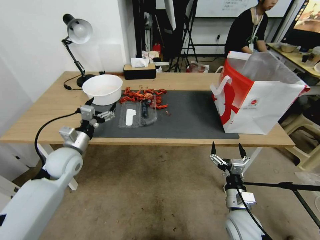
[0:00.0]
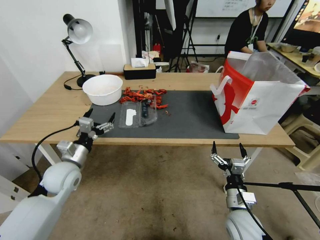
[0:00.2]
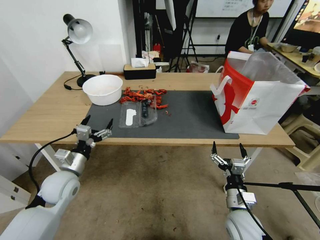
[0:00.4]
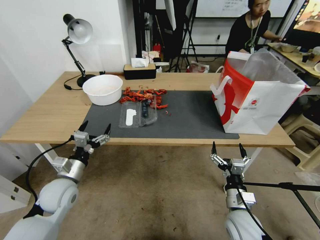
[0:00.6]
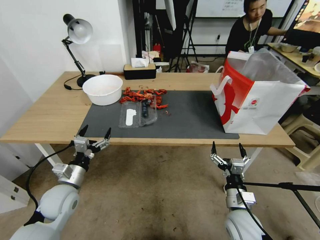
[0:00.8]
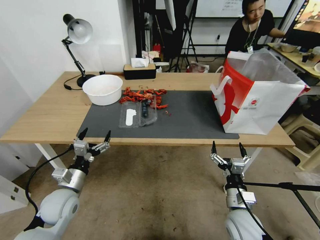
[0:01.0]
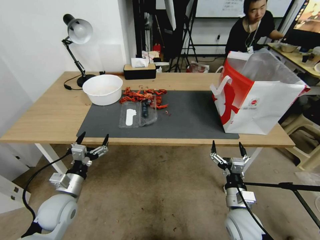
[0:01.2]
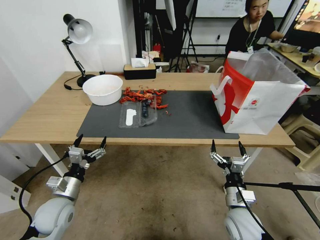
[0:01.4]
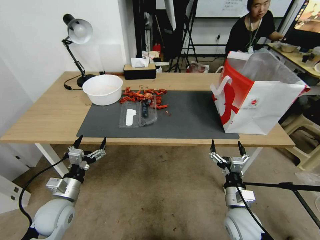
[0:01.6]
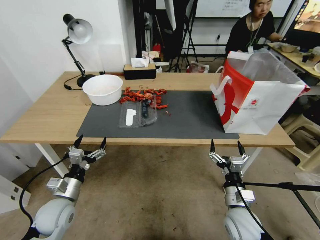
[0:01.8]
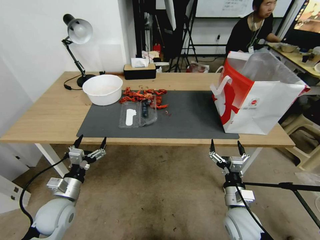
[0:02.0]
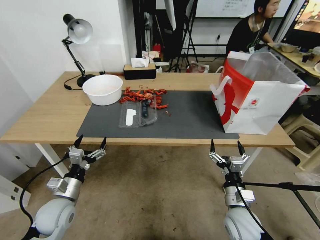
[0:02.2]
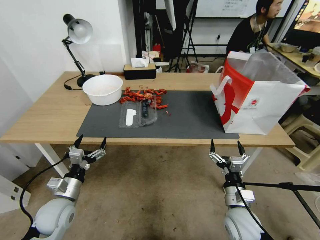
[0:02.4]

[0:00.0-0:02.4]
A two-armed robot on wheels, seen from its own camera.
0:00.0 to 0:01.2: The left gripper shifts roughly 15 cm backward and downward.
0:01.2 to 0:02.4: The grippers make only small movements.

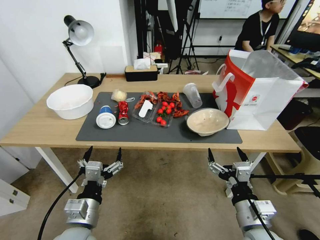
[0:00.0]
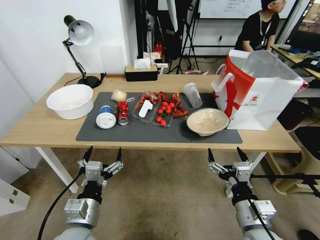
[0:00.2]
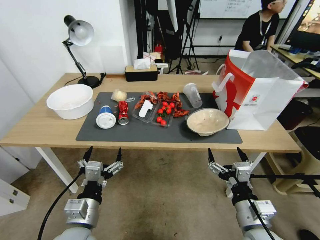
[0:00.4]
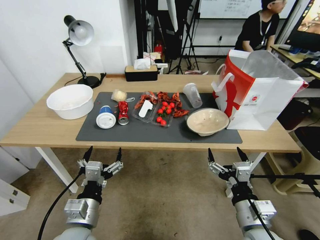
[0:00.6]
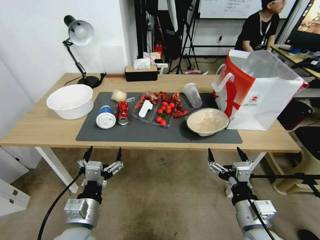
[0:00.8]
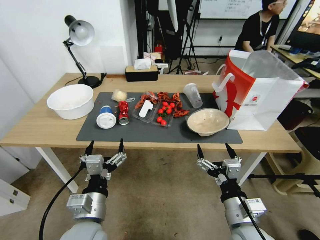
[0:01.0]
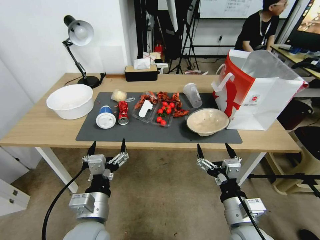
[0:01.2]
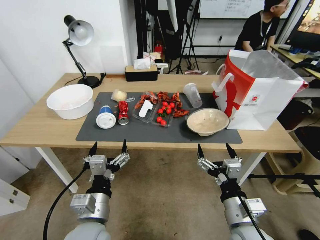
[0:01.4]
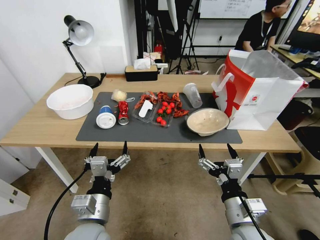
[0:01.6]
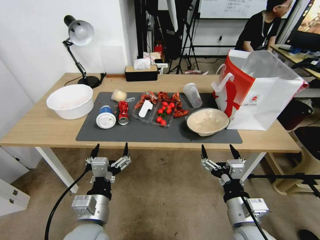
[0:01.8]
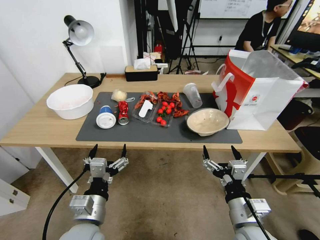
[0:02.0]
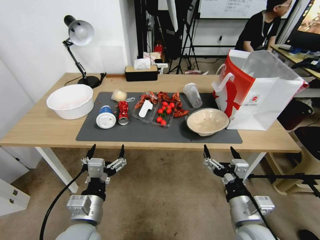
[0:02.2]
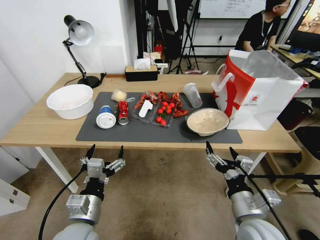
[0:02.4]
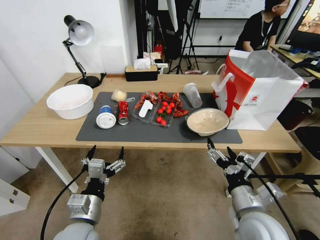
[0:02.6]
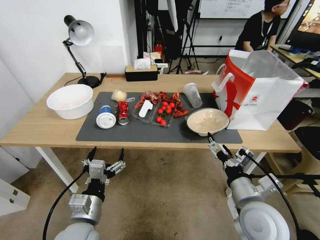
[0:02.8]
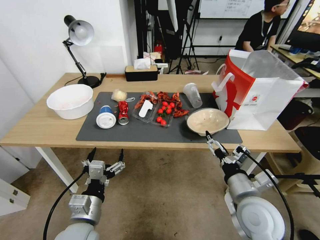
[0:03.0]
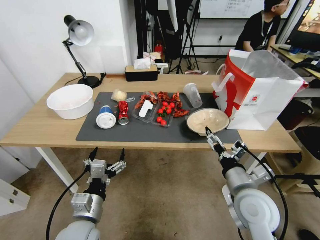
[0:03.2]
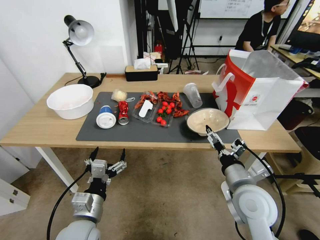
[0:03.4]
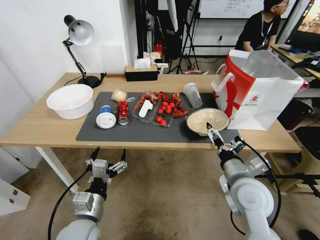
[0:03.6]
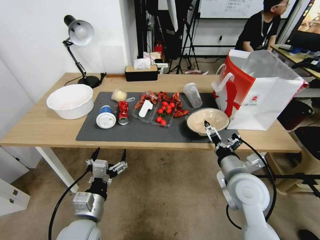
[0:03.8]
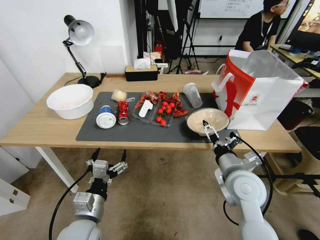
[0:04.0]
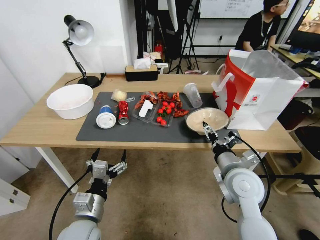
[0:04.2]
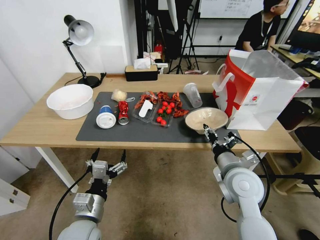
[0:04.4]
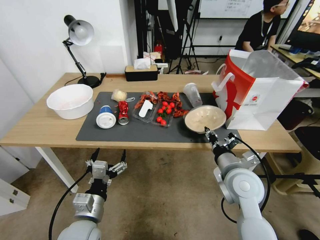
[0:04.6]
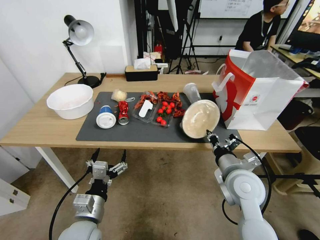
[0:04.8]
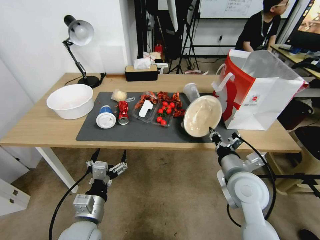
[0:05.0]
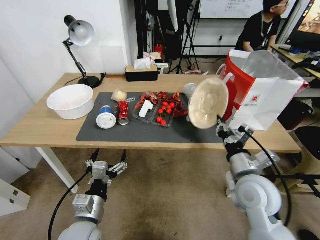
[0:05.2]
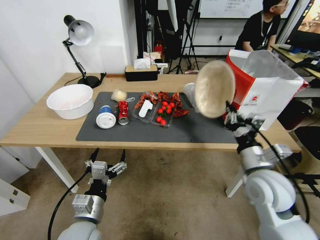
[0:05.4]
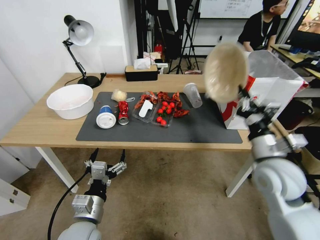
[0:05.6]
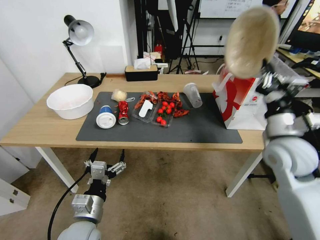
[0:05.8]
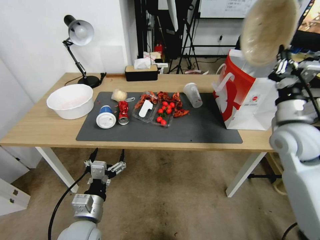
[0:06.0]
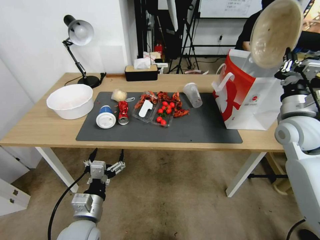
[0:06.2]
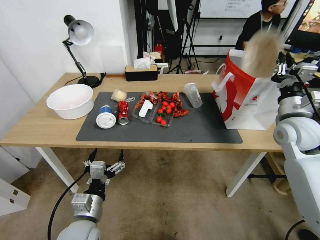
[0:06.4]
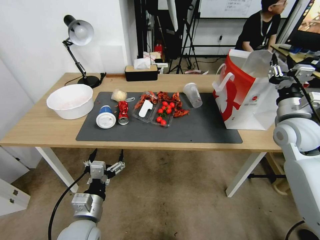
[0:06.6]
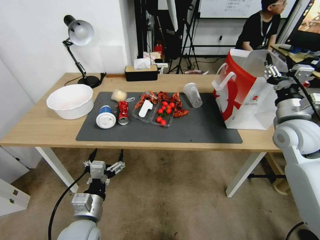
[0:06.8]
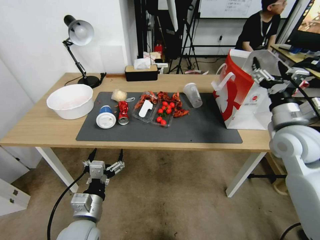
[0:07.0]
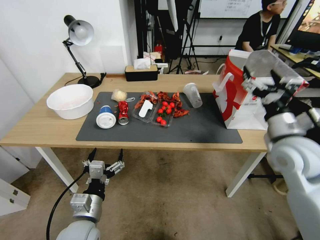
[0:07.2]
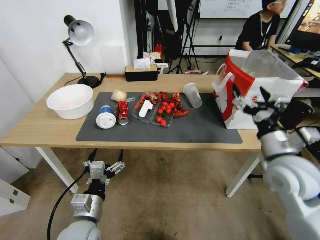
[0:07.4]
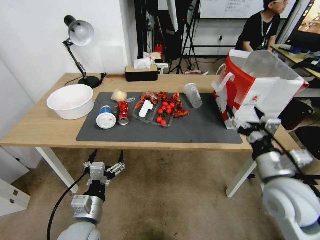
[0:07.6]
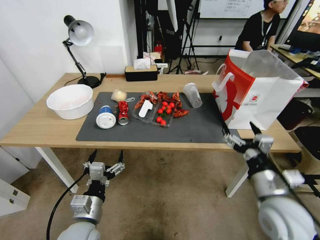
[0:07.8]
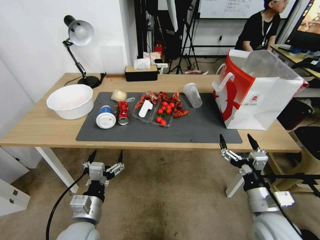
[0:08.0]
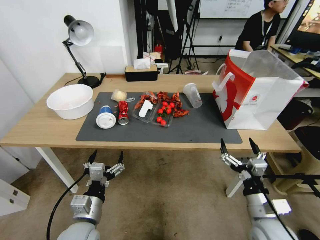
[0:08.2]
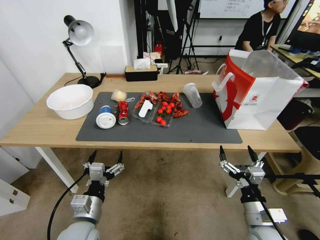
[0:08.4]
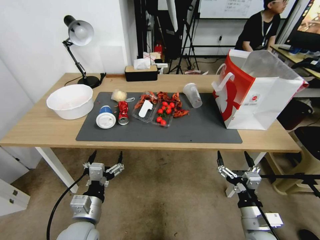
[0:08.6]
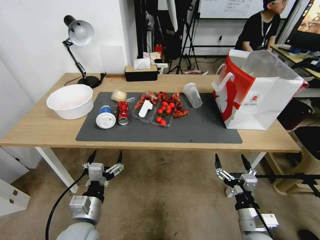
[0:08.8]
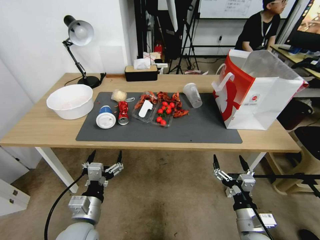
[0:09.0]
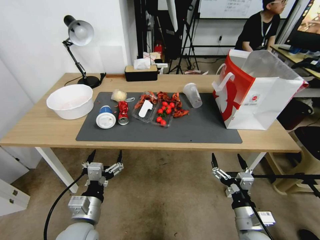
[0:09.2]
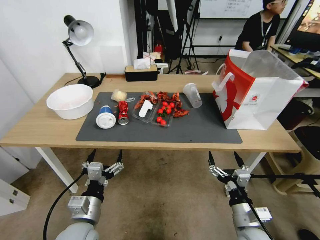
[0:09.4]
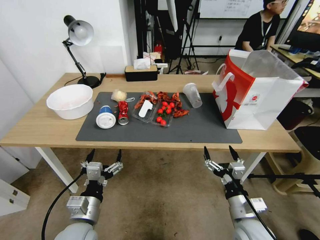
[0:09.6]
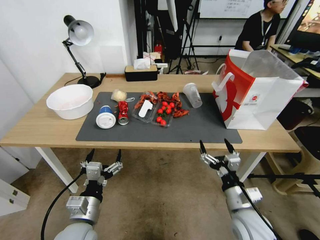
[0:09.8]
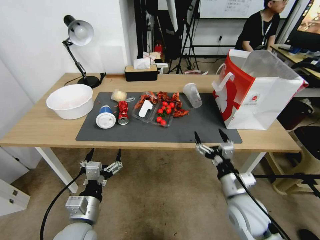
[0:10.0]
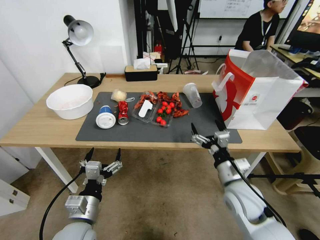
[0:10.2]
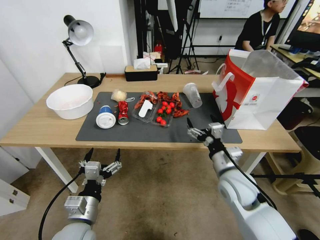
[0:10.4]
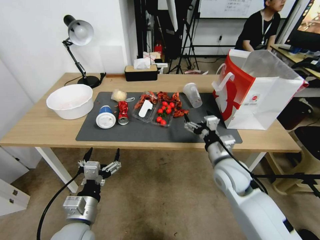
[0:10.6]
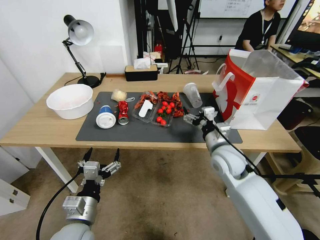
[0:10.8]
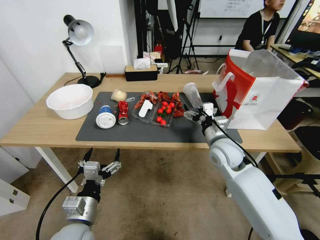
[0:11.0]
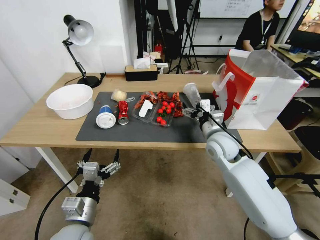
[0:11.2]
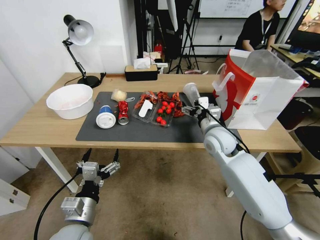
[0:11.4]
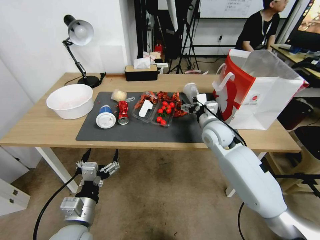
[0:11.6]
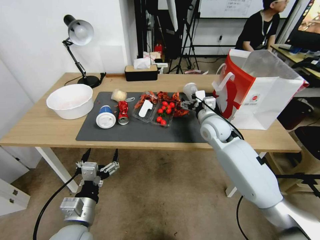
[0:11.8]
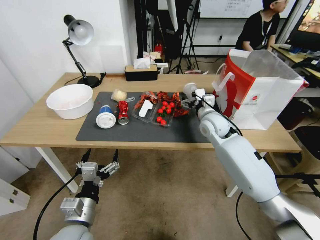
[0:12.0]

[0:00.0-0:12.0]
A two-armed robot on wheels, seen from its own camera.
0:01.6 to 0:03.0: The right gripper ends up some 5 cm from where it was.
0:03.0 to 0:04.4: The right gripper heads forward, covering some 10 cm, and closes its fingers.
0:04.4 to 0:06.0: The right gripper goes approximately 15 cm to the right, upward and forward, and closes.
0:06.0 to 0:07.6: The right gripper shifts approximately 10 cm backward and downward, and opens up.
0:07.6 to 0:09.0: The right gripper heads downward and backward, covering some 20 cm.
0:09.0 to 0:10.4: The right gripper shifts roughly 15 cm forward and upward.
0:10.4 to 0:12.0: The right gripper heads forward, covering some 20 cm.

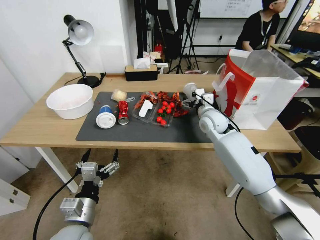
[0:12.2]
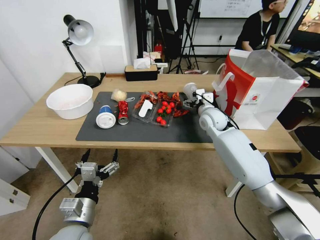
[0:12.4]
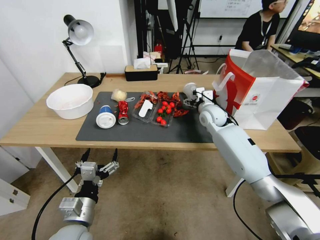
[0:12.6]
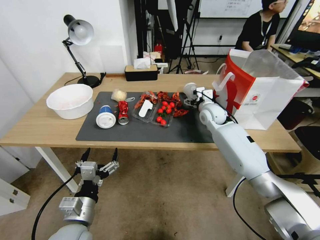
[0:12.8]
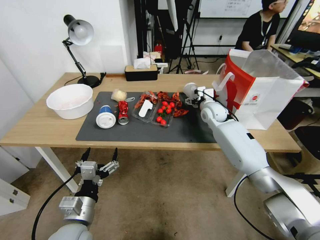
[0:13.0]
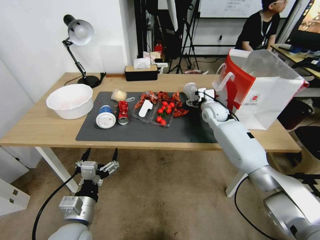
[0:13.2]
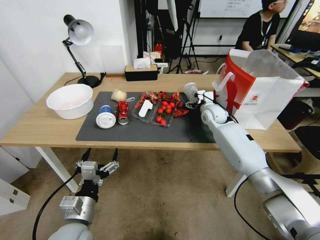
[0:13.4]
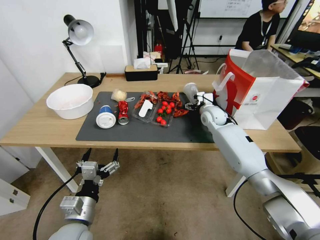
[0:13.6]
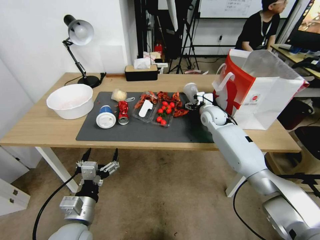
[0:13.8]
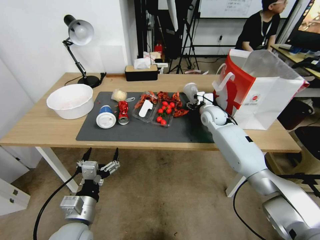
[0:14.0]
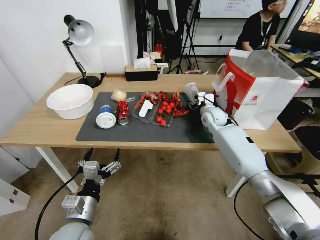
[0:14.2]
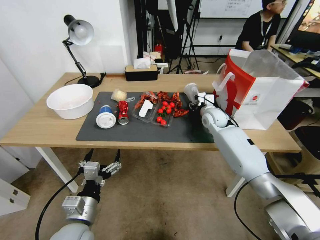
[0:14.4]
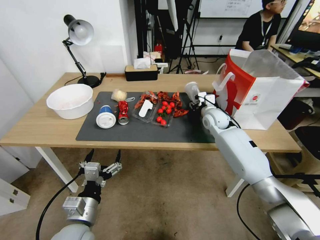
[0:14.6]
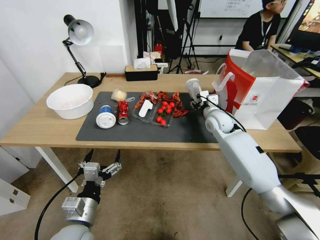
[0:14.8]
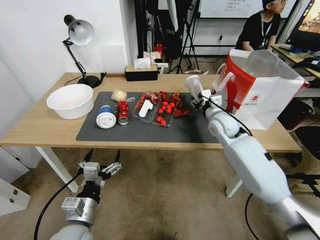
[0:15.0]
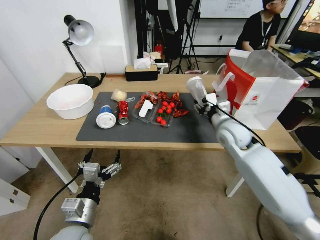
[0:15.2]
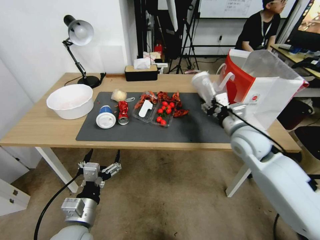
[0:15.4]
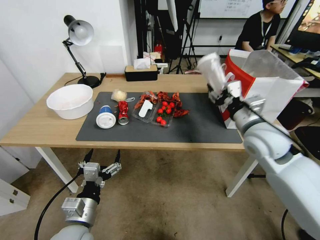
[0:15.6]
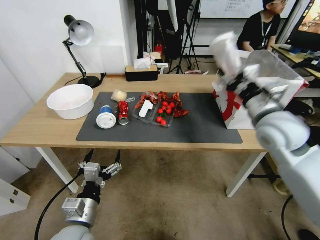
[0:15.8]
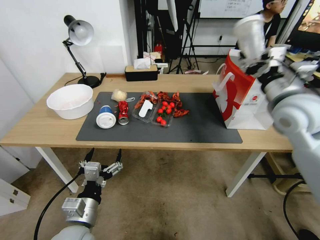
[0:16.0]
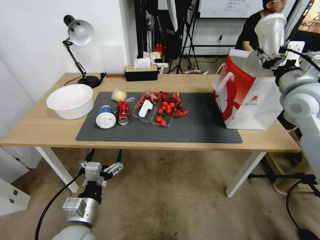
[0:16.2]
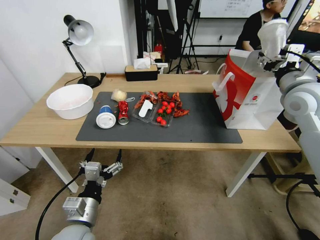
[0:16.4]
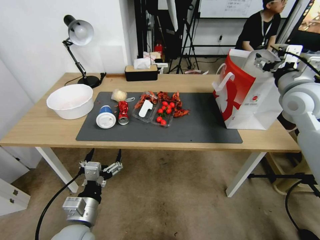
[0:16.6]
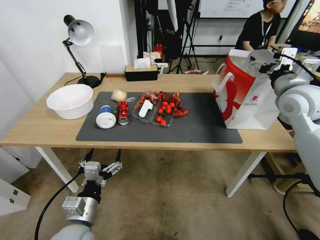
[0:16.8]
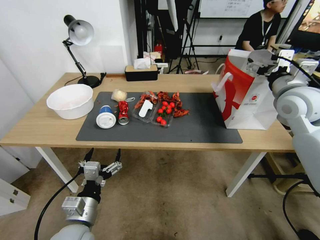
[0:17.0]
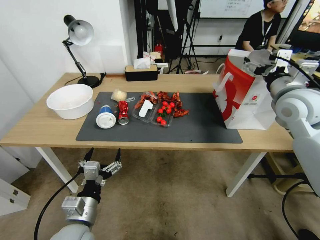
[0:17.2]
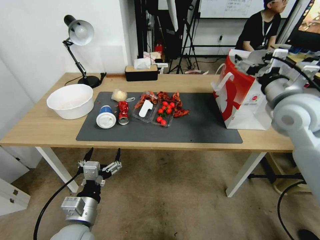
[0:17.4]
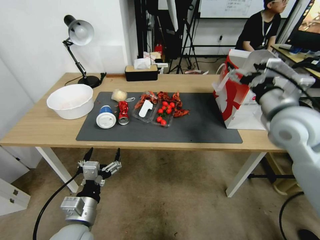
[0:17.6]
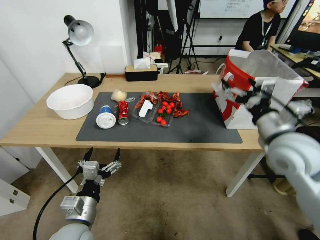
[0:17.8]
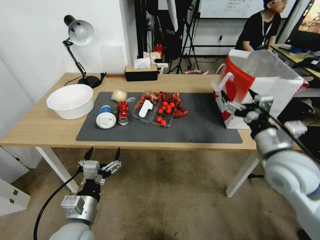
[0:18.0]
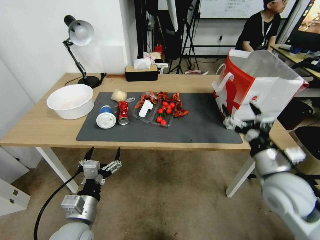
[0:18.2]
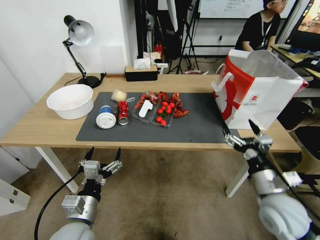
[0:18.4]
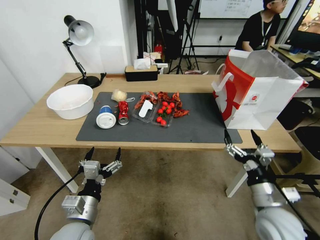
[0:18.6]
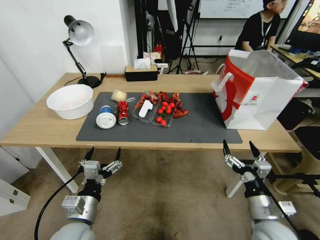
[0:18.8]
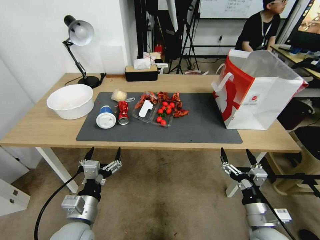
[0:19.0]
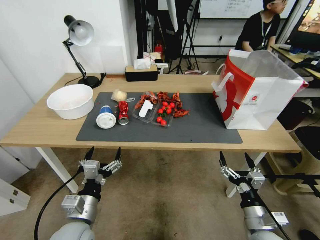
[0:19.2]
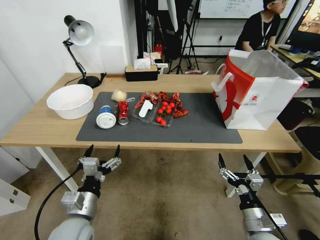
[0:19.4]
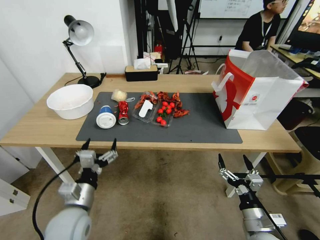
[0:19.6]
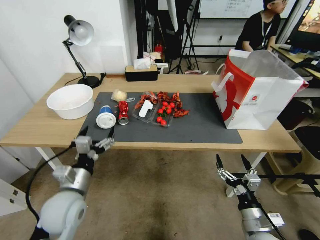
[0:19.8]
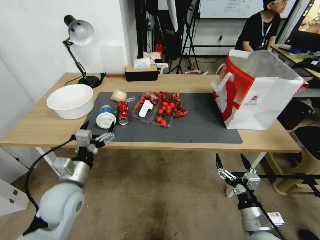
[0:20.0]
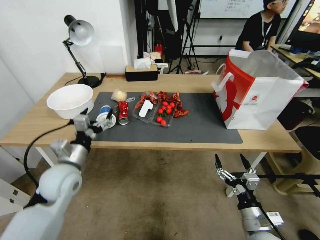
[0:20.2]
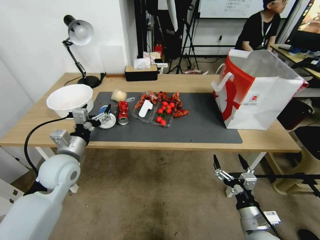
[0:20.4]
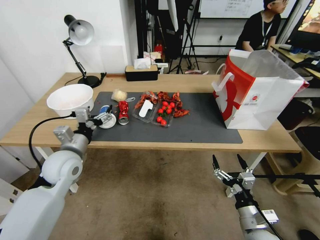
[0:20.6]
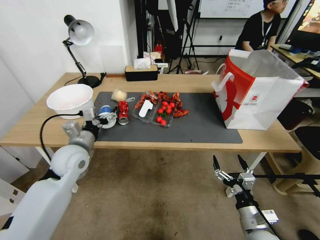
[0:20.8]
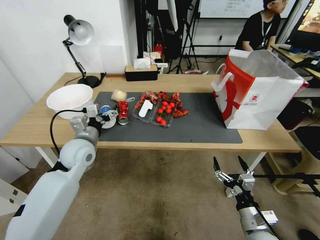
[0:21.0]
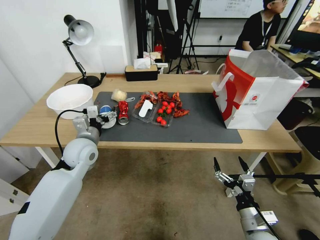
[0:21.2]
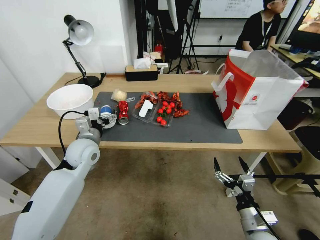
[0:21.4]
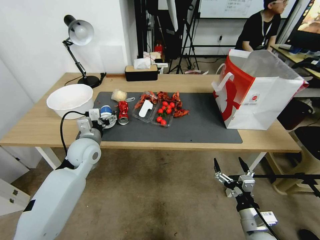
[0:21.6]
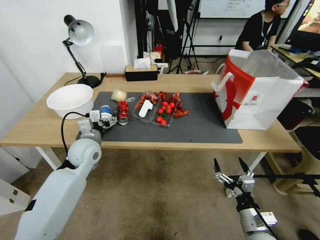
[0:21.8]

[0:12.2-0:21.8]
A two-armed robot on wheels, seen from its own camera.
0:12.2 to 0:13.8: The right gripper travels forward by roughly 5 cm.
0:13.8 to 0:15.4: The right gripper travels backward and upward by approximately 20 cm, and closes up.
0:15.4 to 0:17.0: The right gripper goes about 15 cm upward and to the right, and opens up.
0:17.0 to 0:18.6: The right gripper moves downward and backward, about 30 cm.
0:18.6 to 0:20.2: The right gripper goes roughly 5 cm downward. Meanwhile the left gripper heads forward, covering approximately 5 cm.
0:20.2 to 0:21.8: The left gripper goes about 15 cm forward.
